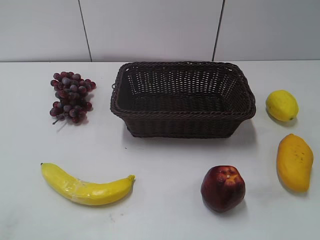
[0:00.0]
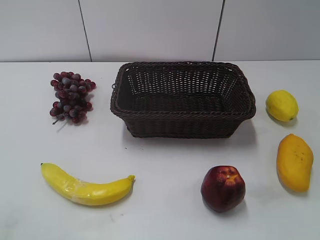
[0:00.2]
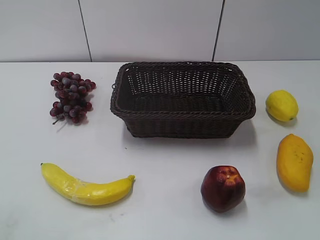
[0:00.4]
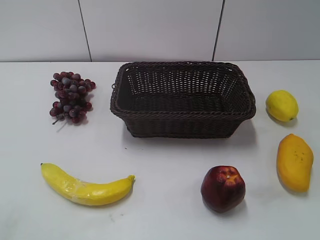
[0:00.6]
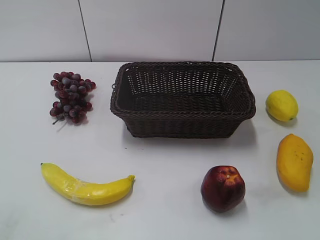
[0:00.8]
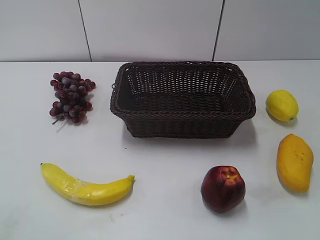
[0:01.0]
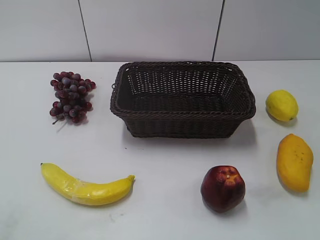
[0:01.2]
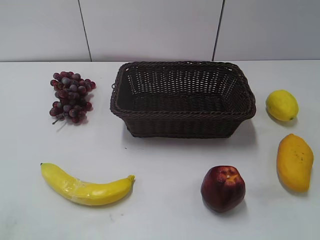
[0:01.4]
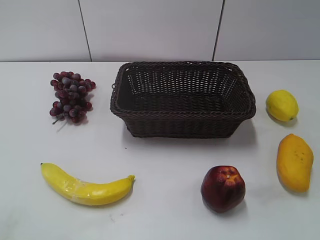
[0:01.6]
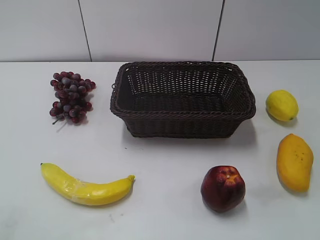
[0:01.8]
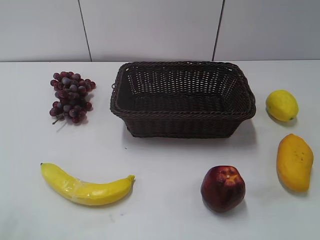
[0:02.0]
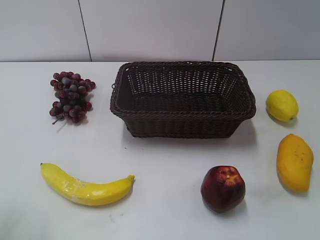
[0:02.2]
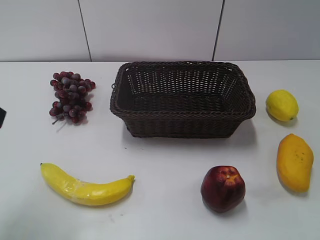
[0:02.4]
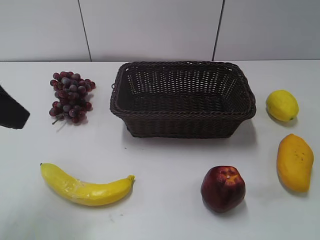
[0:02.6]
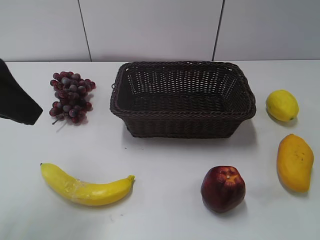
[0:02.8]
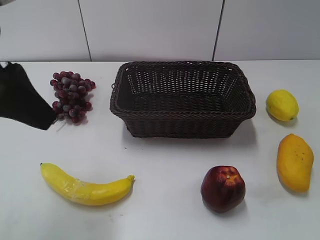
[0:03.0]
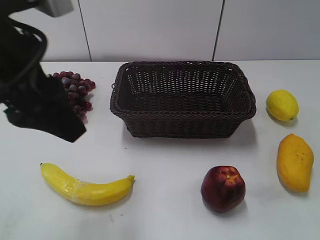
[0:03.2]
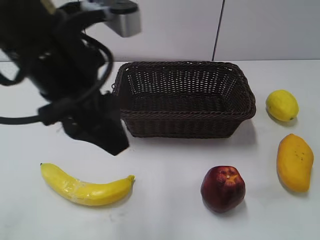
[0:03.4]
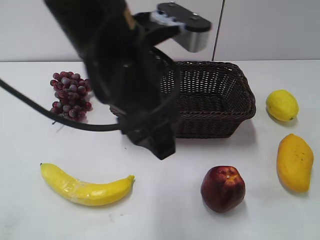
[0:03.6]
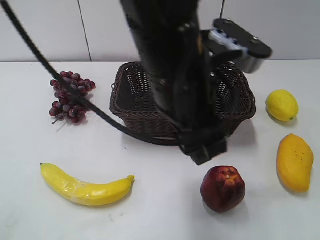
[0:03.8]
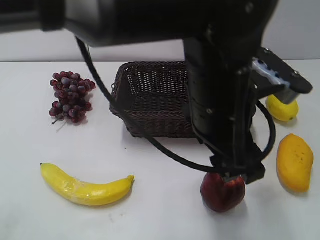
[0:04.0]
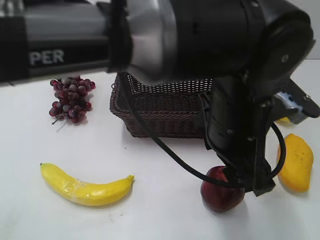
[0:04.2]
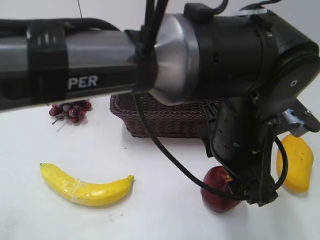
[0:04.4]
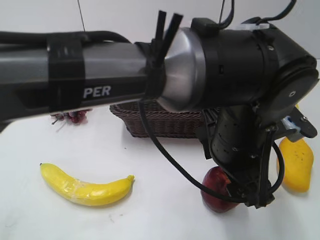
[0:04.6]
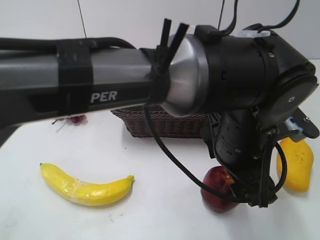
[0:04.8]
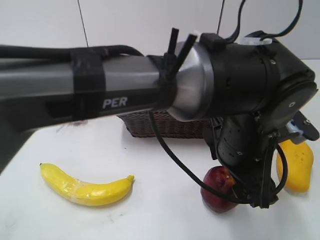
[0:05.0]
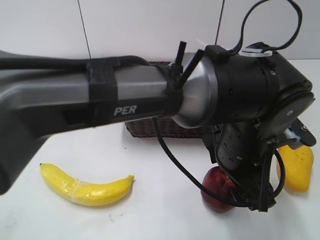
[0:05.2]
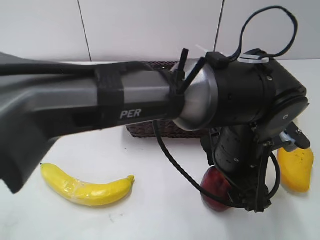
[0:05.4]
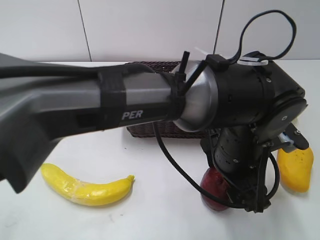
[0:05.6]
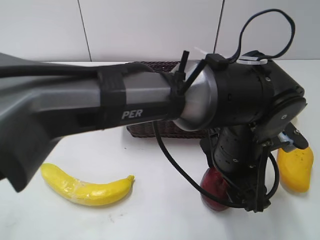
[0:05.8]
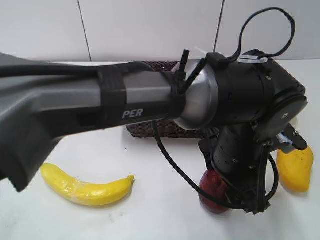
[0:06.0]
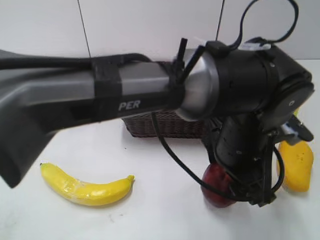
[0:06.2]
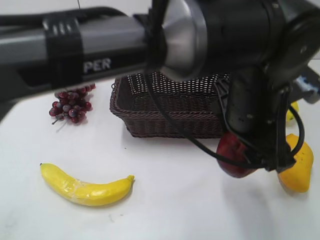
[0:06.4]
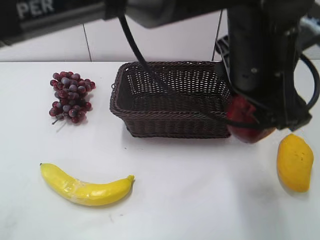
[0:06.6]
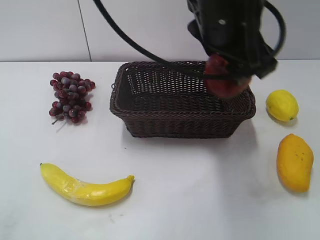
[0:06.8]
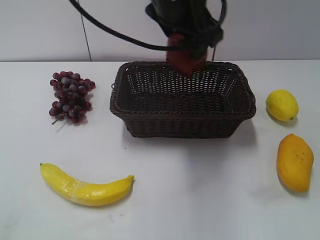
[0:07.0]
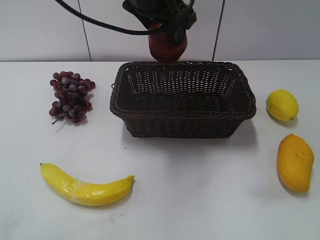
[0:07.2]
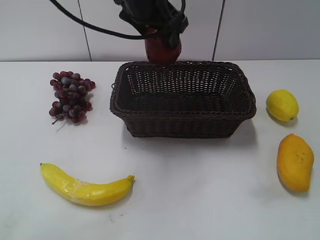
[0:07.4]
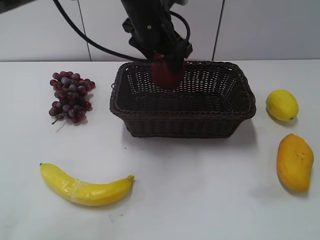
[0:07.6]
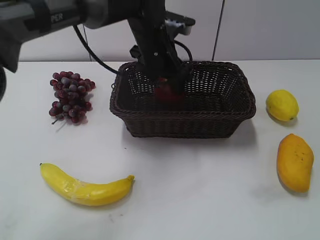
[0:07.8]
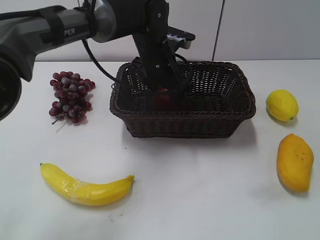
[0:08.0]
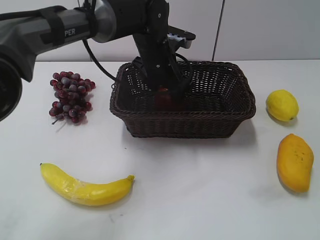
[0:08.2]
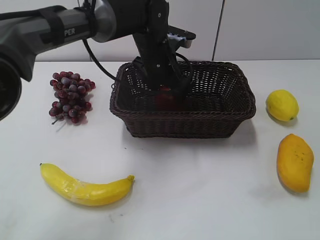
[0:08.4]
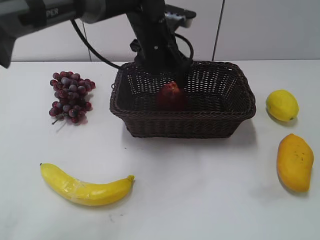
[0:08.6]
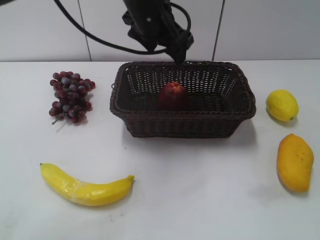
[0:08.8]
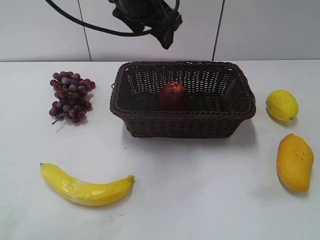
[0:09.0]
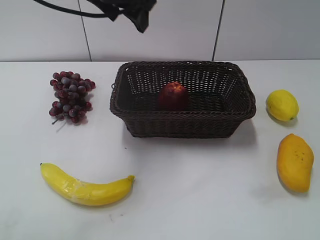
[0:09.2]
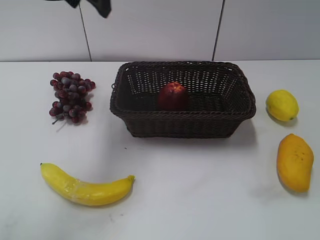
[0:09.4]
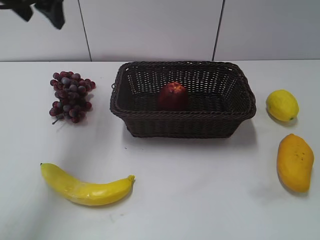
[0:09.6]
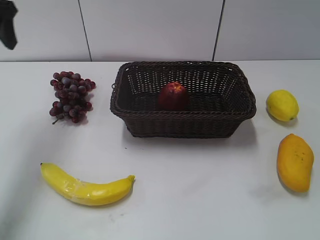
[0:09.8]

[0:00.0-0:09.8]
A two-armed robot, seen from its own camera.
Step, 0:02.4 to 0:05.4: Grasp the apple with left gripper.
Step, 0:05.8 to 0:08.2: Place the apple in the basket with left gripper.
0:01.4 to 0:02.8: The left gripper travels forward and to the right by about 25 cm.
0:02.8 to 0:04.2: The left gripper travels to the right by some 30 cm.
0:04.2 to 0:05.6: The left gripper goes approximately 5 cm downward.
0:05.6 to 0:07.0: The left gripper moves upward, forward and to the left, approximately 20 cm.
0:07.0 to 0:08.4: The left gripper goes some 15 cm downward and forward.
0:08.4 to 0:09.8: The left gripper is displaced to the left and upward by about 30 cm.

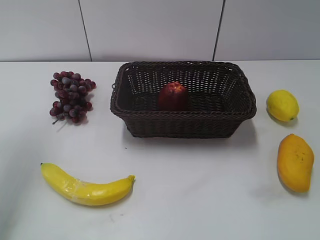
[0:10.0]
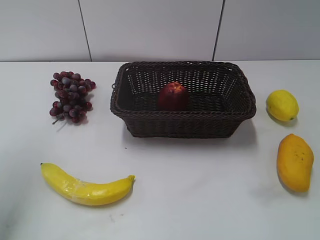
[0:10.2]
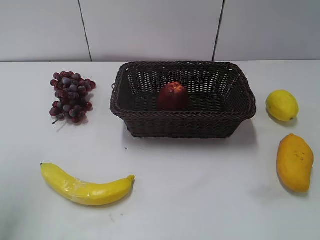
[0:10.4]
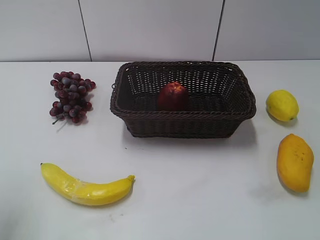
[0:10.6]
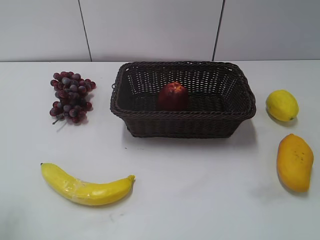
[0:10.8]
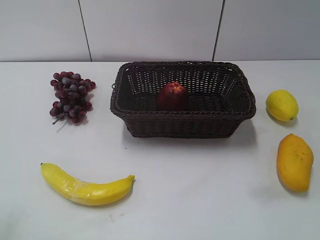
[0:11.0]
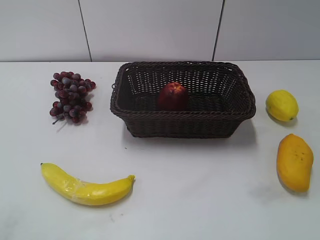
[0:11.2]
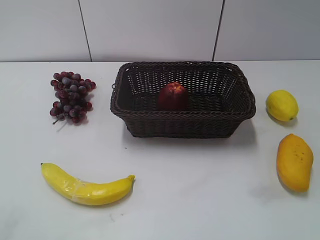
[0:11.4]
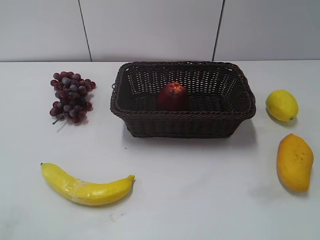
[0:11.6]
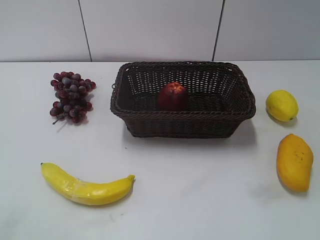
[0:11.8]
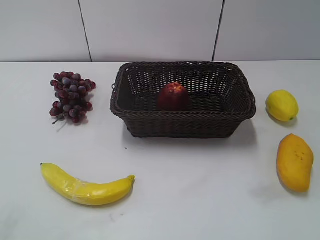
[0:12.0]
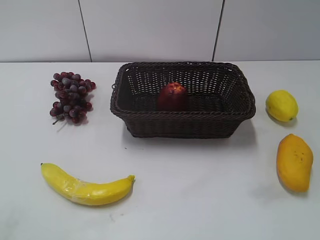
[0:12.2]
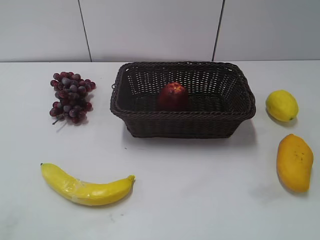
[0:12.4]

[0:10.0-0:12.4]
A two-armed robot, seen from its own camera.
0:10.0 to 0:11.2: The left gripper is displaced backward by some 25 cm.
